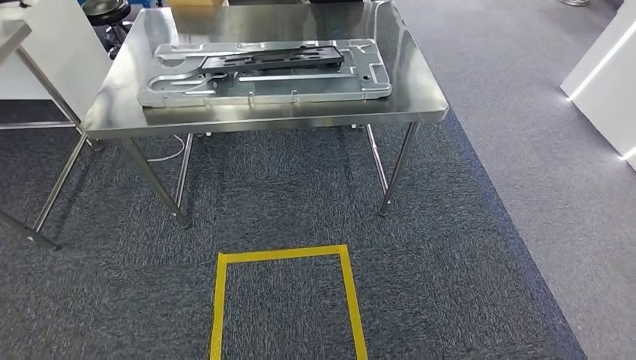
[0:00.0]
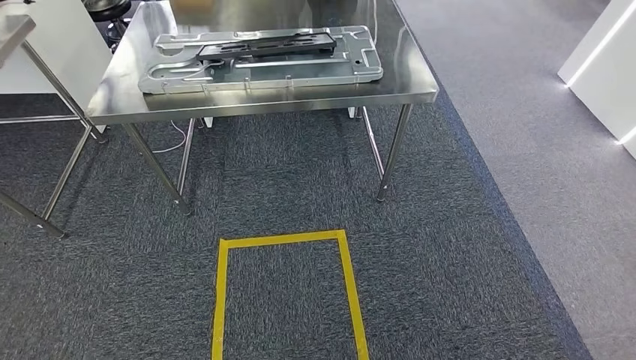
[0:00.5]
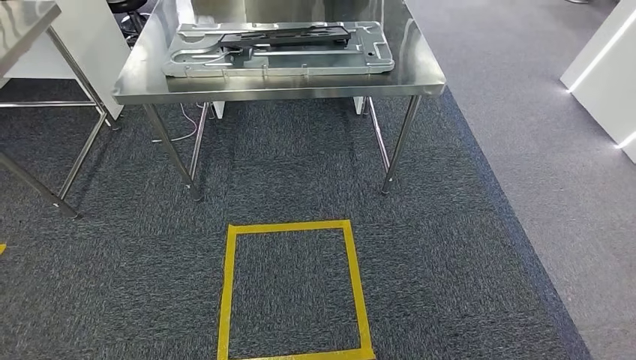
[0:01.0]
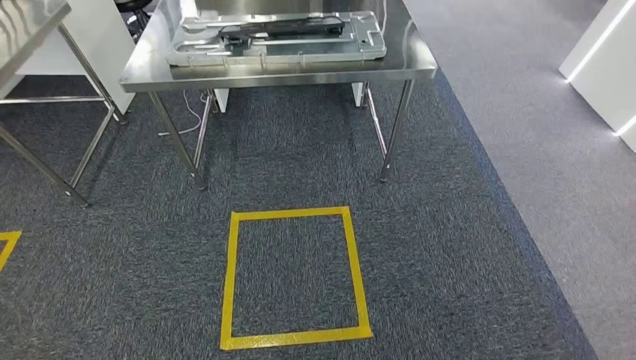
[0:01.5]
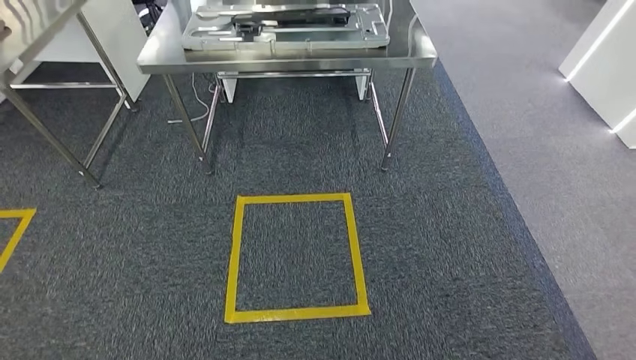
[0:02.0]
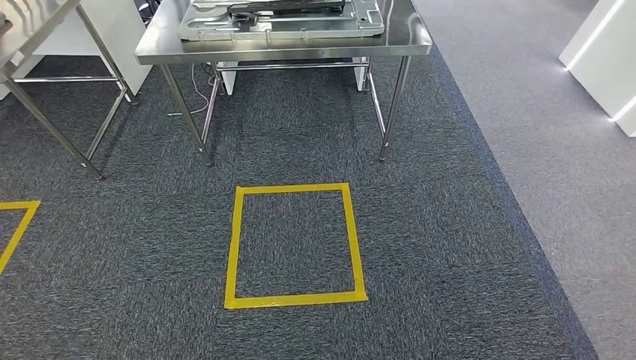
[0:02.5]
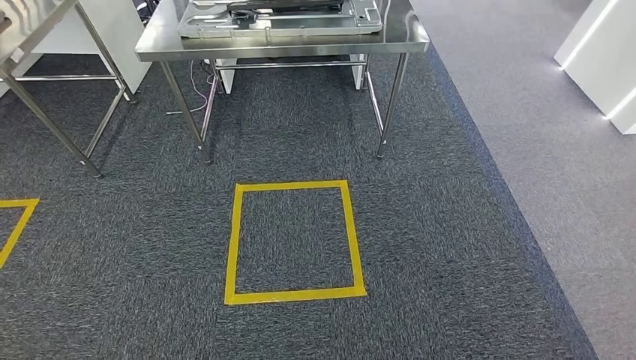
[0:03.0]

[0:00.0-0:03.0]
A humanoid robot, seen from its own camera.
0:01.5 to 0:03.0: The hands make only small movements.

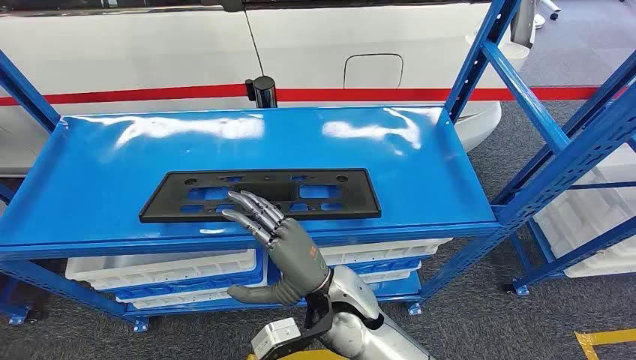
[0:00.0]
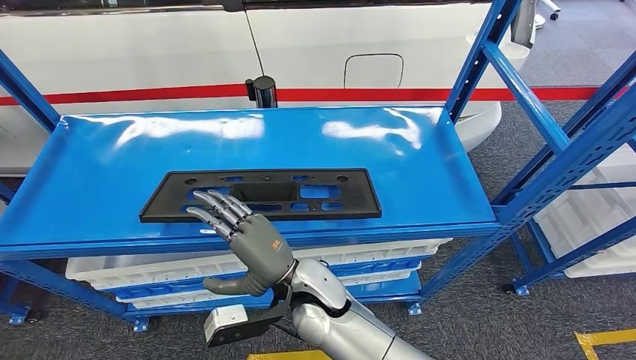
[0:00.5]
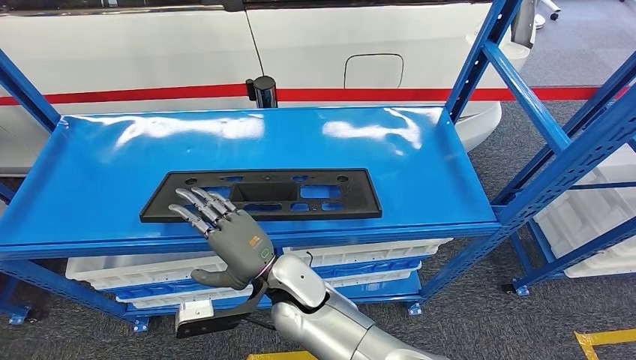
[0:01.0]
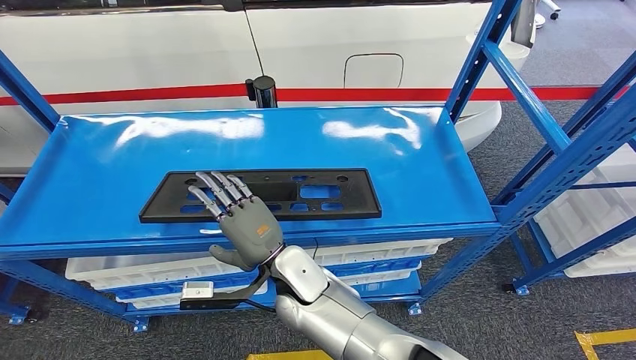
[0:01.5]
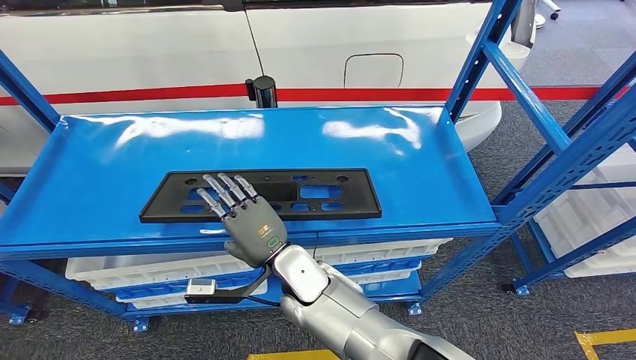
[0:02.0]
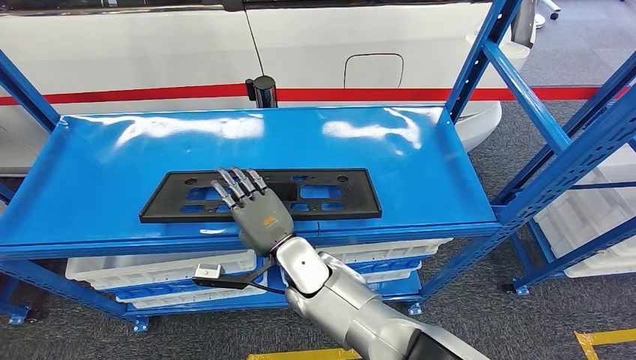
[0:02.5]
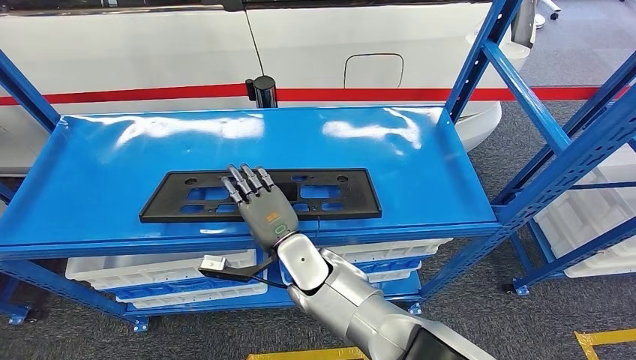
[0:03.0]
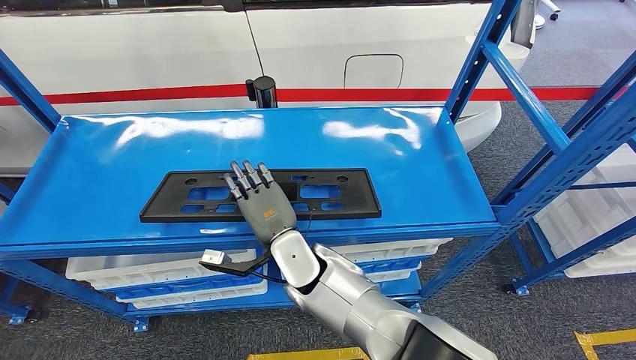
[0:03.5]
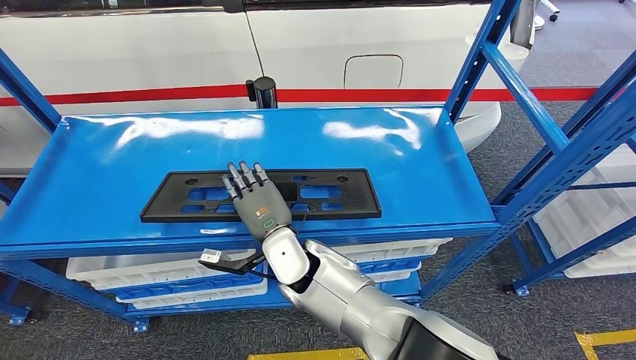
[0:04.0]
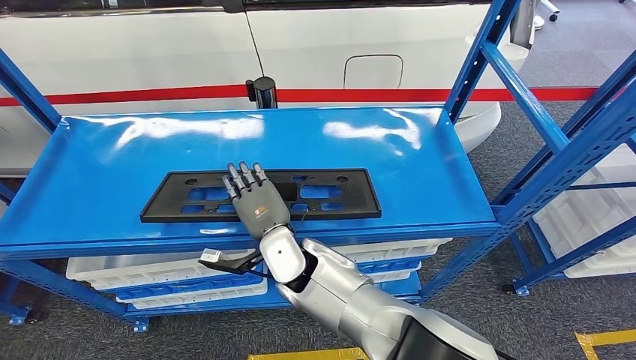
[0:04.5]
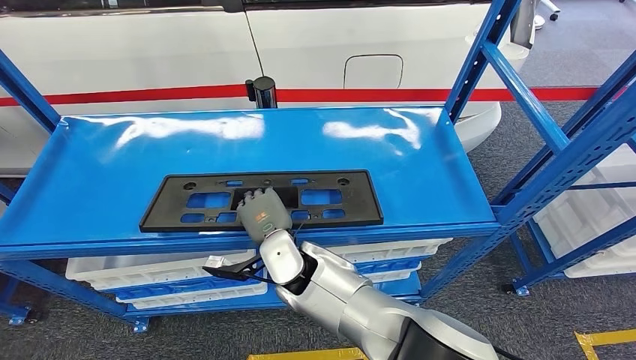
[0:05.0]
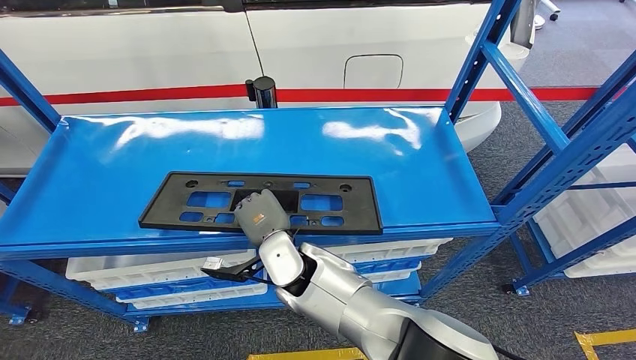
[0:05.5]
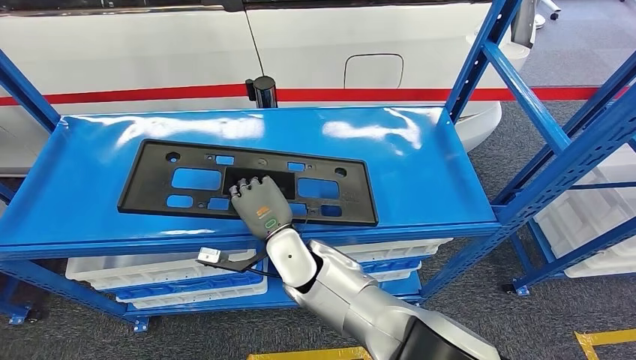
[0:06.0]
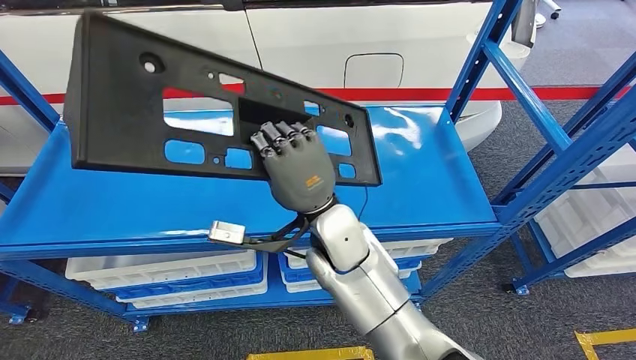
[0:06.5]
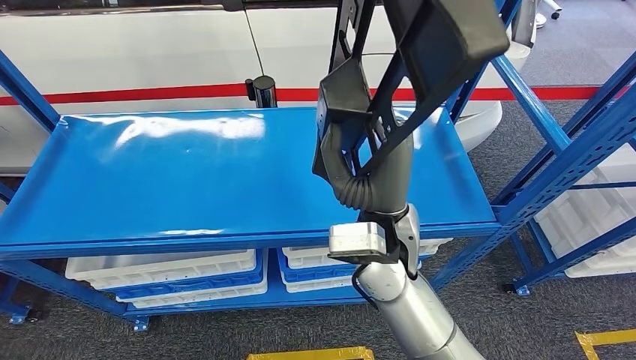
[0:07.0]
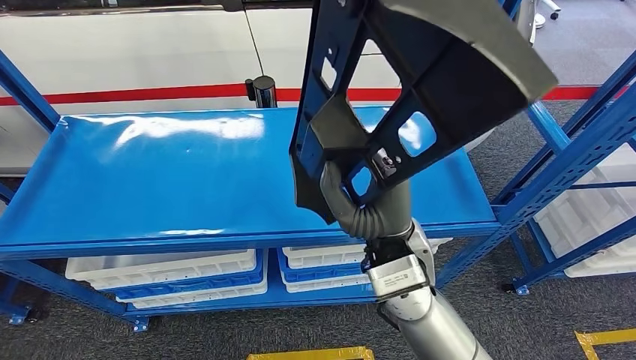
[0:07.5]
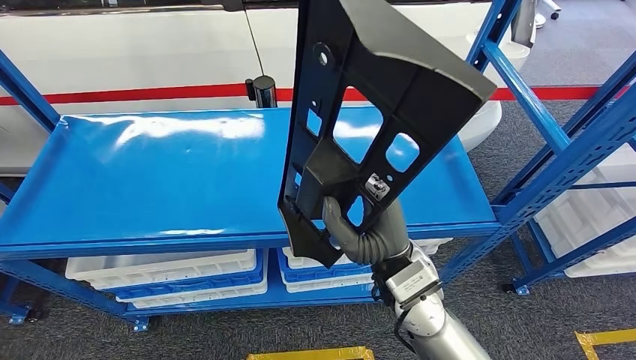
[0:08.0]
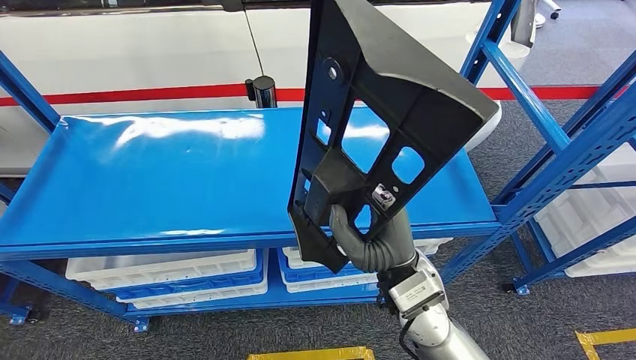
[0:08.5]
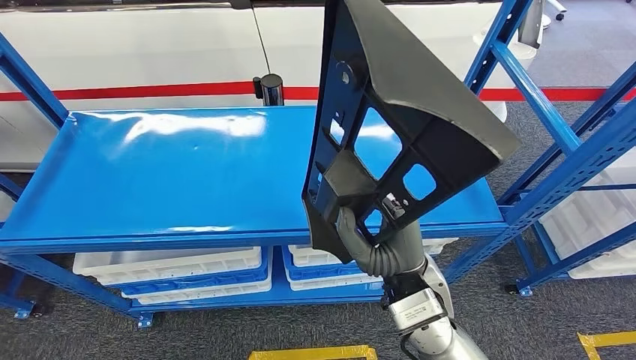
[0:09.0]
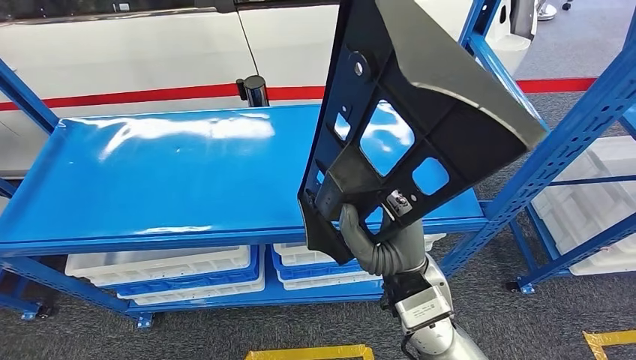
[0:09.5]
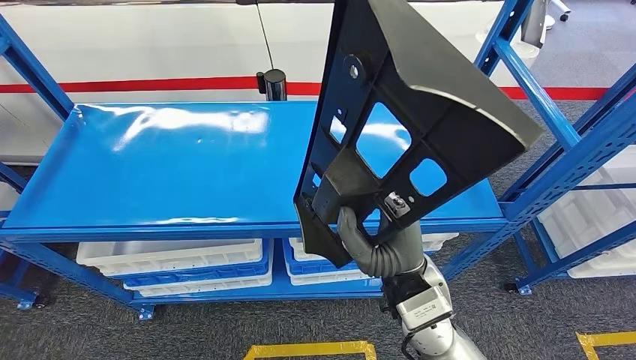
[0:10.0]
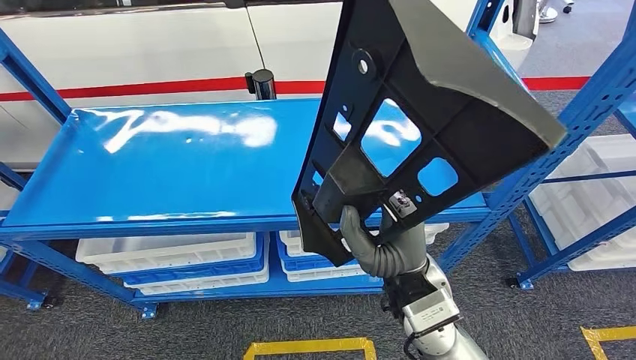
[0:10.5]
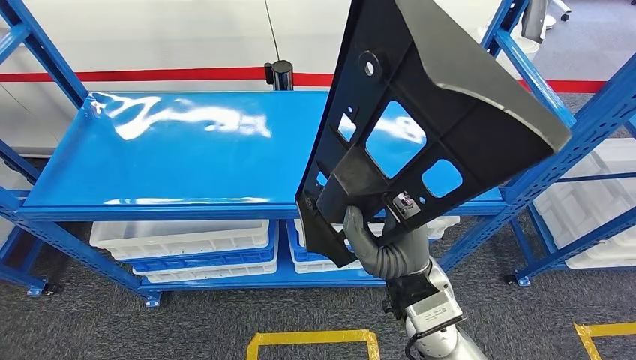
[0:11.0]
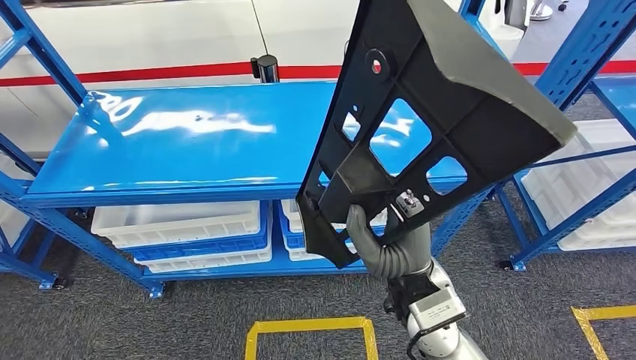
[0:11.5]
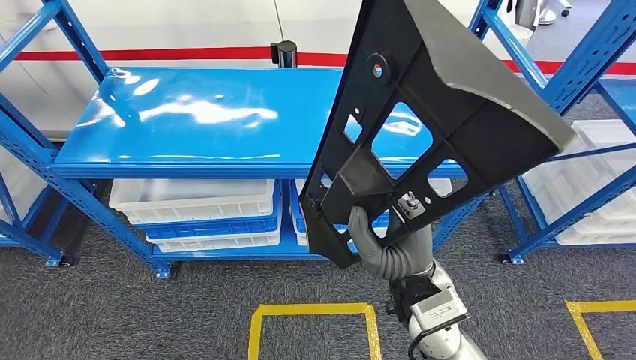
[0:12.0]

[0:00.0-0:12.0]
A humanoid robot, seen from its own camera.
0:04.0 to 0:06.0: There are only small adjustments of the hands.

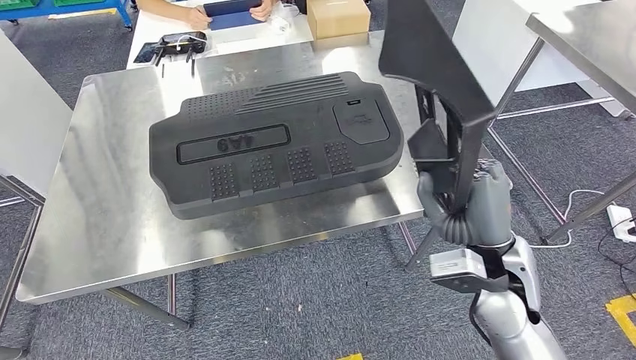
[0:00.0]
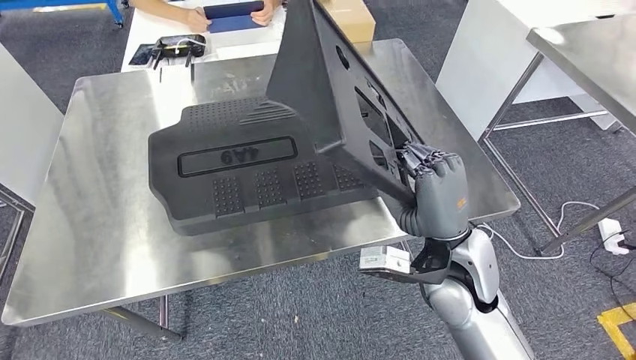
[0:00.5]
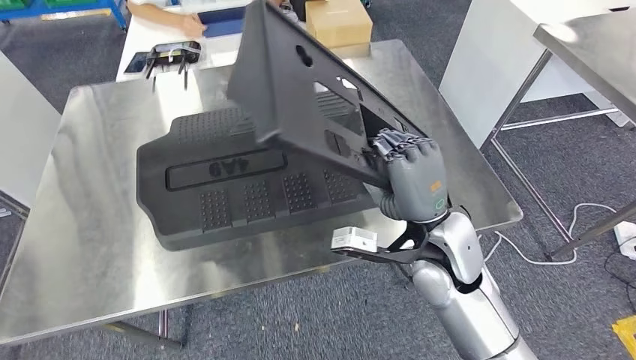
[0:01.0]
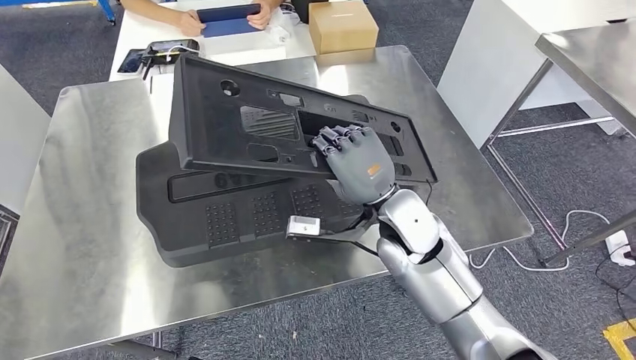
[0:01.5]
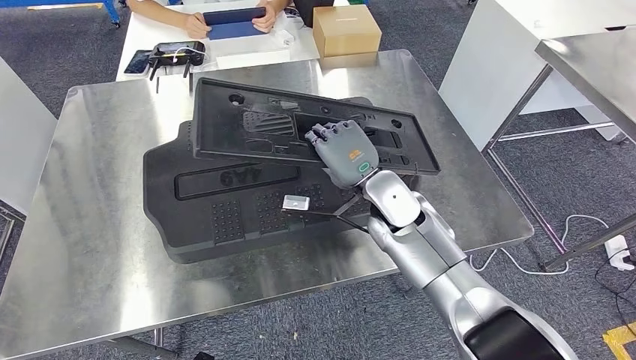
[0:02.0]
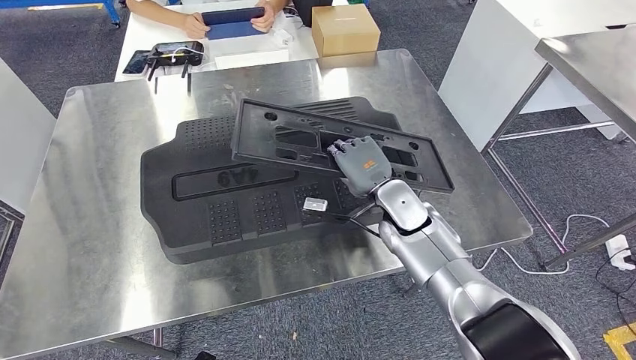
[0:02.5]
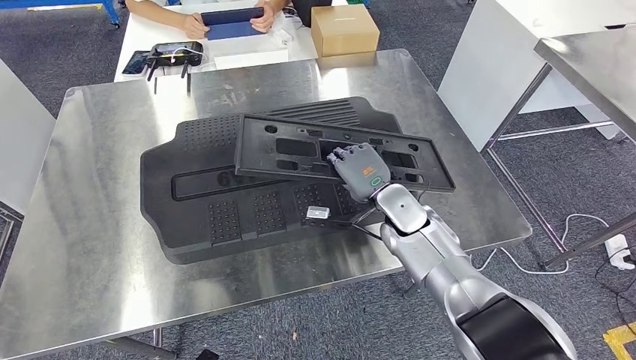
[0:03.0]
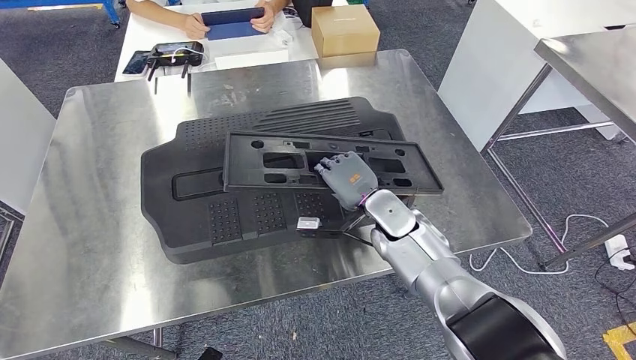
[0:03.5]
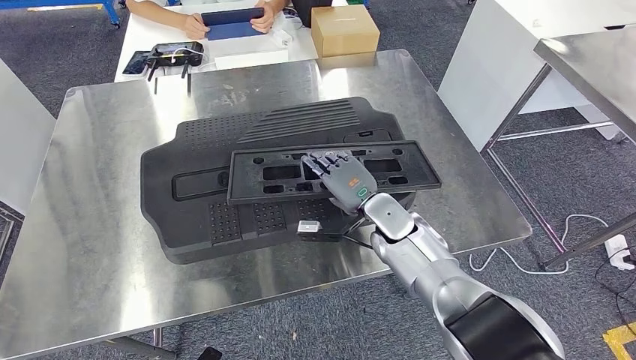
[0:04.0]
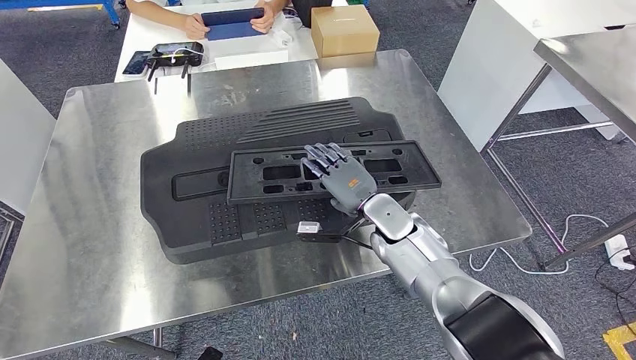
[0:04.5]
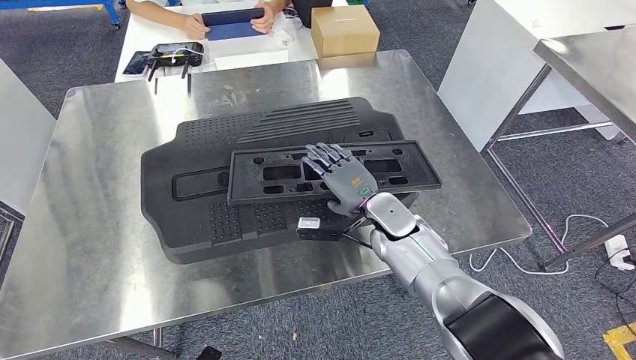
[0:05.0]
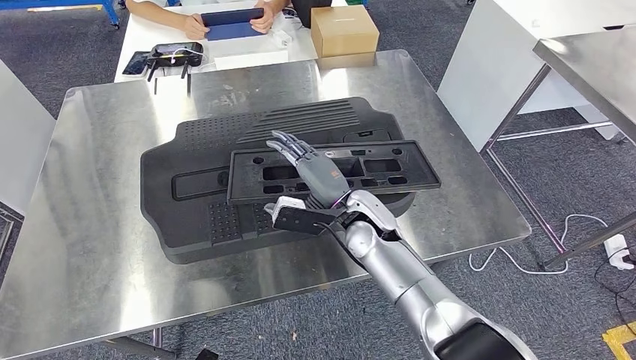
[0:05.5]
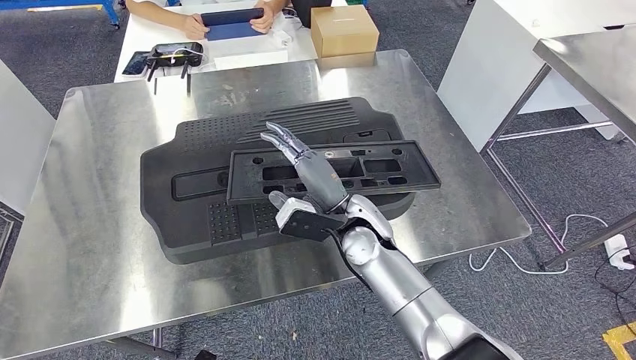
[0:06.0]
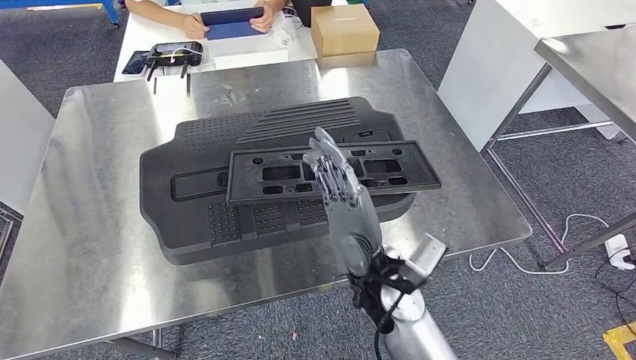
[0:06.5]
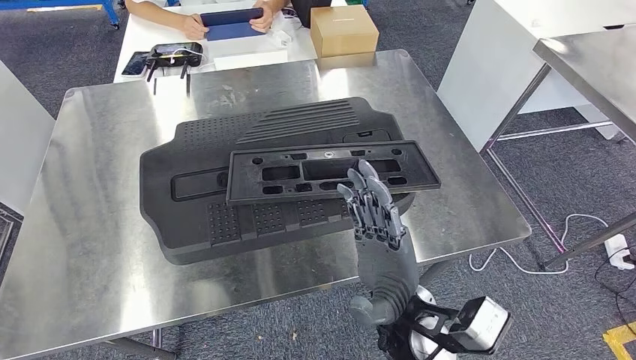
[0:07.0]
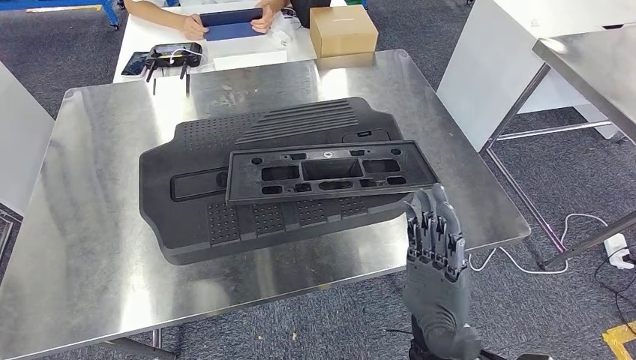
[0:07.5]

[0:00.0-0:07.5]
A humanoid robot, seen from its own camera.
0:02.0 to 0:04.0: The right hand moves downward, roughly 10 cm.
0:04.0 to 0:05.5: The right hand goes some 5 cm to the left.
0:05.5 to 0:07.5: The right hand is displaced backward by about 20 cm.
